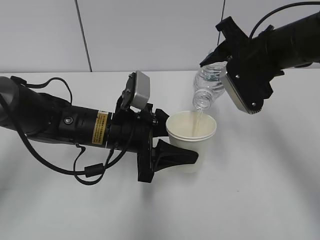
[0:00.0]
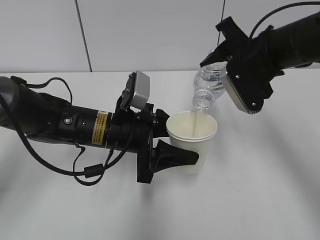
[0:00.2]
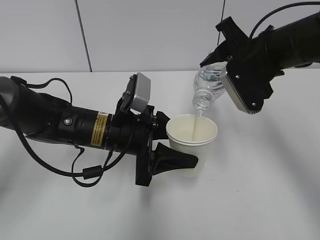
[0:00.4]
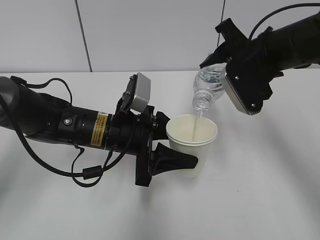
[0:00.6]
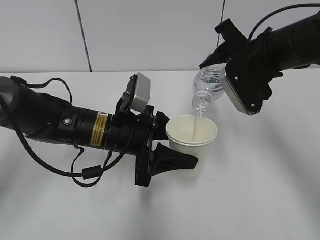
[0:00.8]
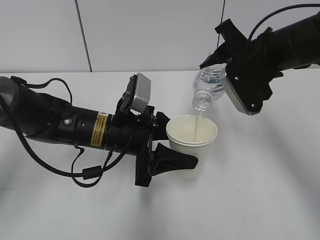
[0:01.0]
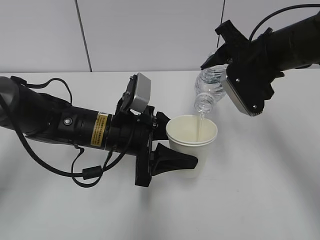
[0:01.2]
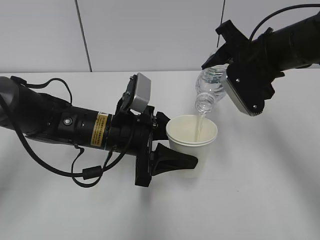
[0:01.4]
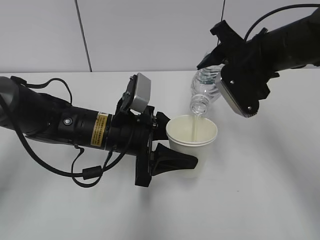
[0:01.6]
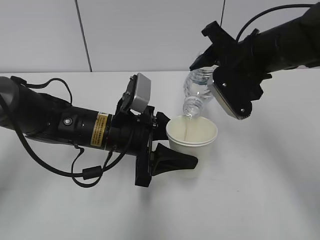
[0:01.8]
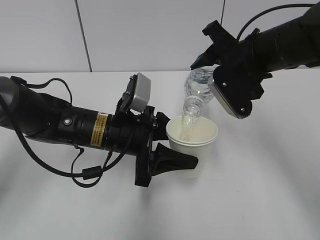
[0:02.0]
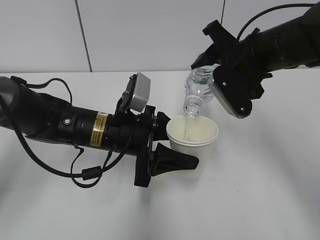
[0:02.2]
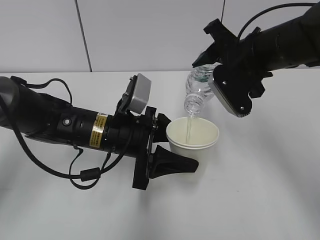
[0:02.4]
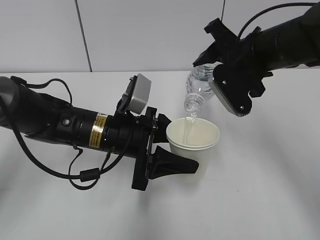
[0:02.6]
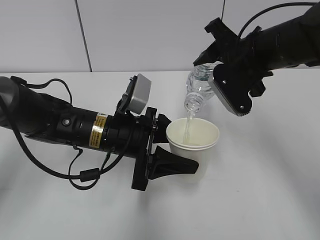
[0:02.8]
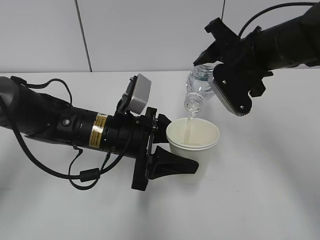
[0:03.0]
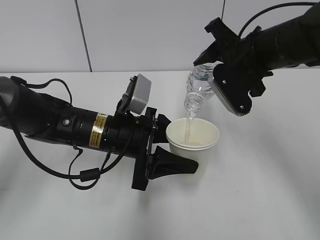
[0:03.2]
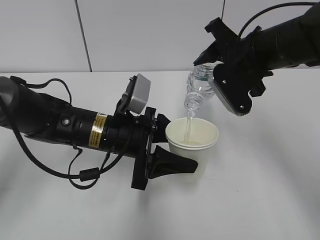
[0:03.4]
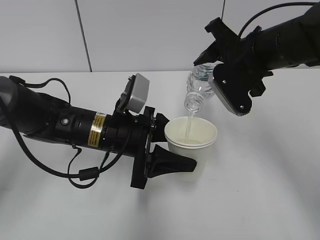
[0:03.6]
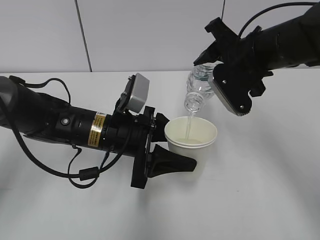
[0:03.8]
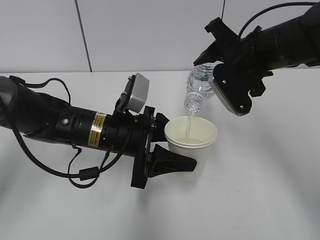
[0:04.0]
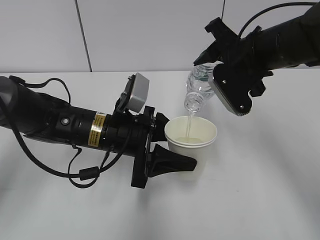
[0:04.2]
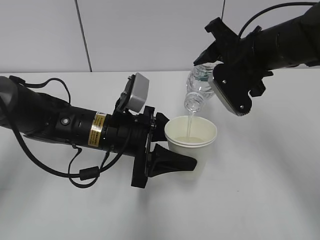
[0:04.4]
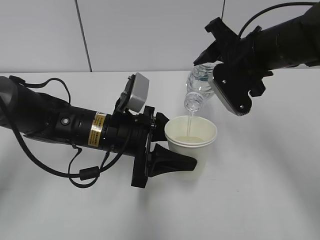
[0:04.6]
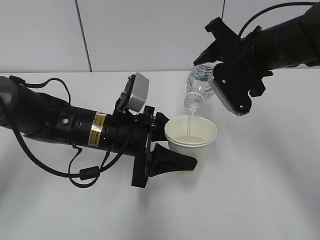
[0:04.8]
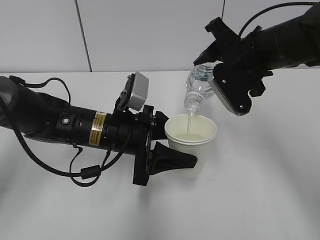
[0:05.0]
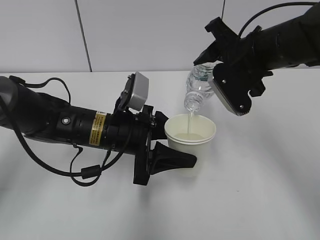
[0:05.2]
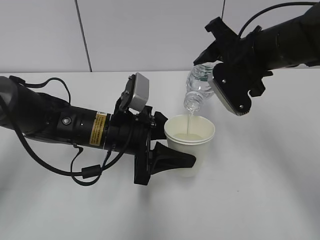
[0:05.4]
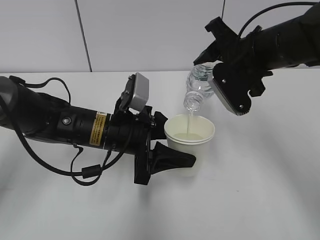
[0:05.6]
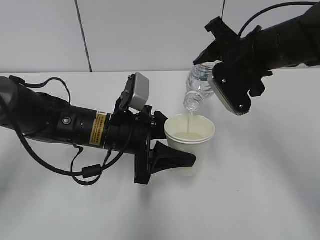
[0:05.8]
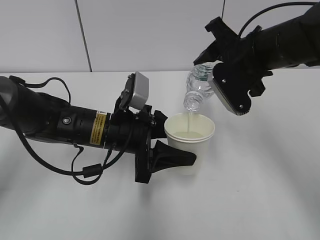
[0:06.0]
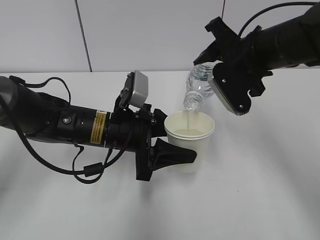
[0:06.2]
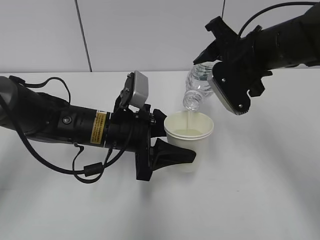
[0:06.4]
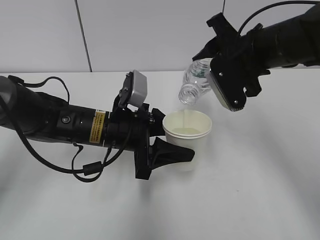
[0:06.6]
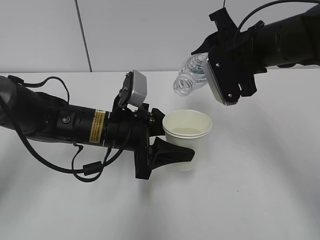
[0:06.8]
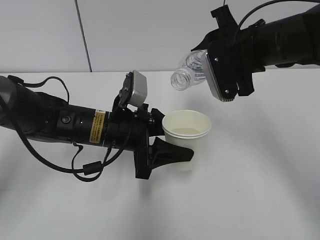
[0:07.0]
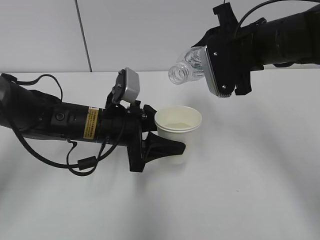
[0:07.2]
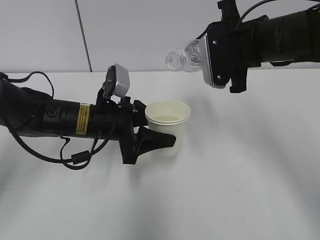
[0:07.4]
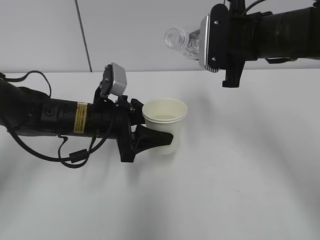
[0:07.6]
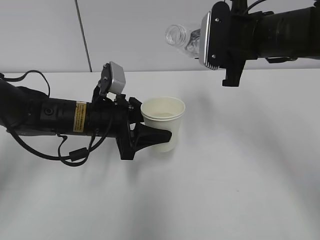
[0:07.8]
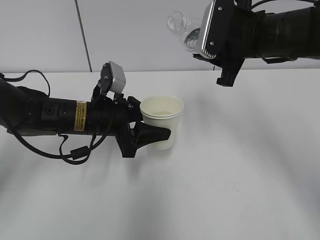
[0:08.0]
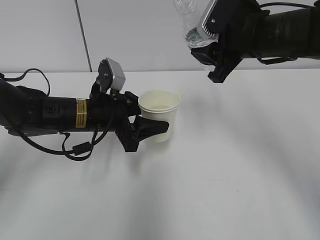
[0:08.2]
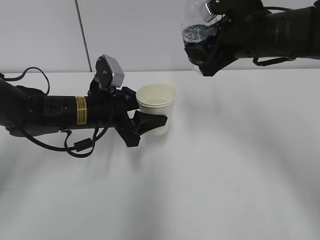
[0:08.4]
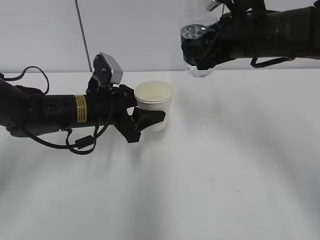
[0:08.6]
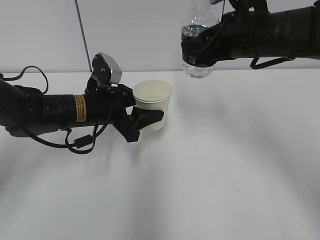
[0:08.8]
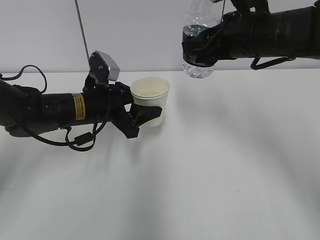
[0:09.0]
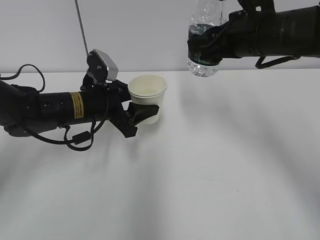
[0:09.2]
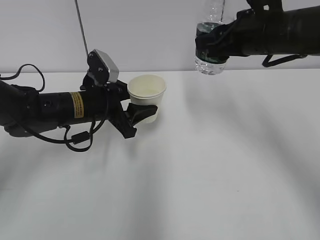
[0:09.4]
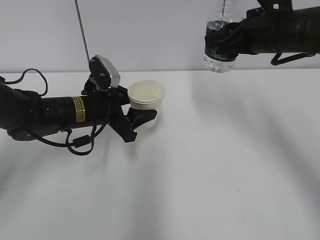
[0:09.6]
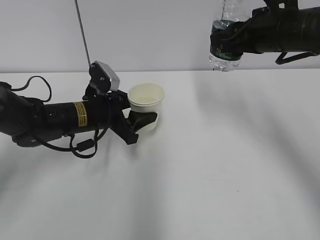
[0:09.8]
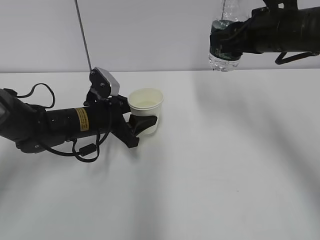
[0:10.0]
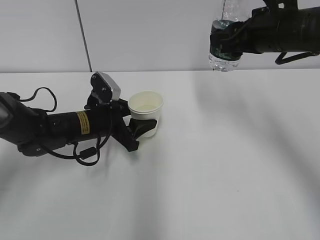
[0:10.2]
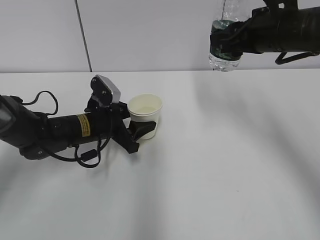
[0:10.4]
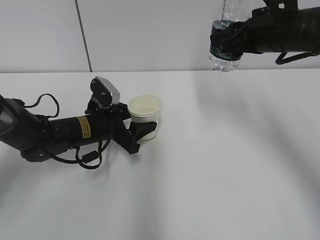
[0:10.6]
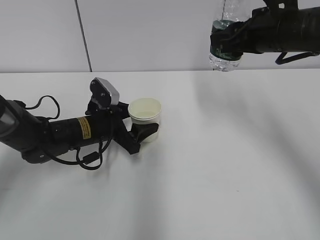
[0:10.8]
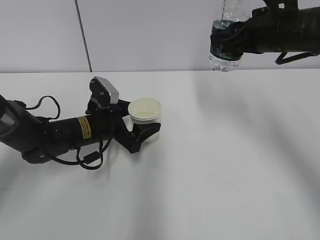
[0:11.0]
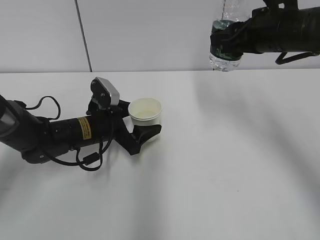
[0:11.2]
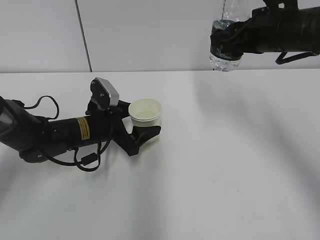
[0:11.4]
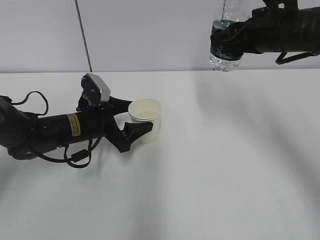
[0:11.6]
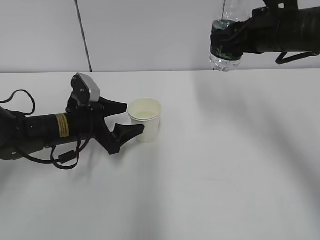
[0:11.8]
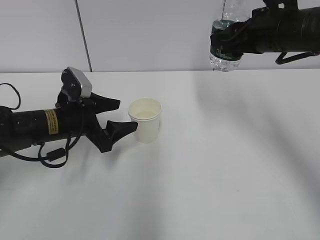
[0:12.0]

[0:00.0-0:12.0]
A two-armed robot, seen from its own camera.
Step, 0:01.8 to 0:11.2: Place the water bottle with the right hand.
0:00.0 to 0:01.6: Both grippers stay put.
0:01.6 to 0:06.0: Both grippers stay about where they are.
0:09.0 to 0:10.4: The left gripper goes some 5 cm downward.
0:10.4 to 0:12.0: The left gripper changes place by approximately 5 cm, and opens up.

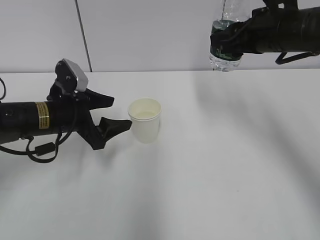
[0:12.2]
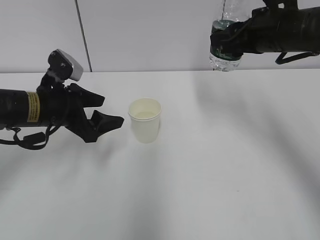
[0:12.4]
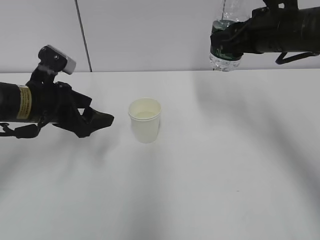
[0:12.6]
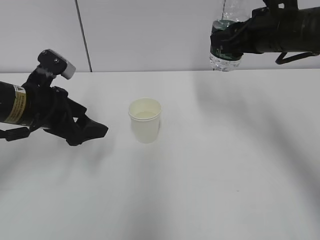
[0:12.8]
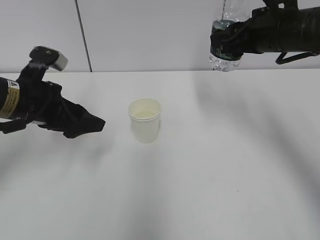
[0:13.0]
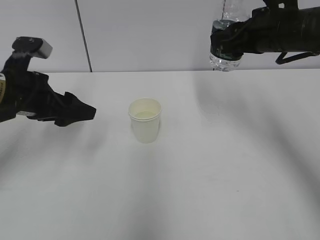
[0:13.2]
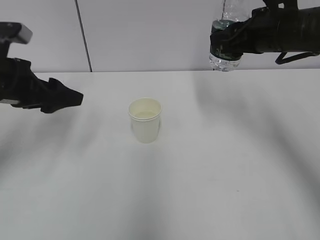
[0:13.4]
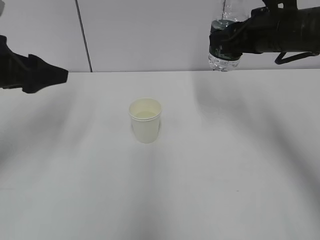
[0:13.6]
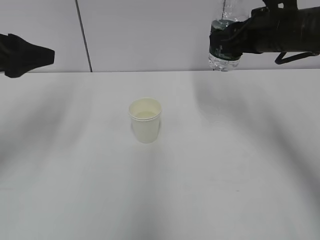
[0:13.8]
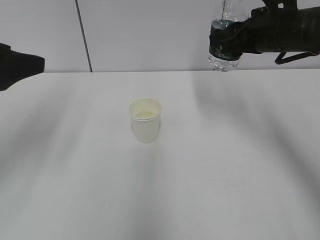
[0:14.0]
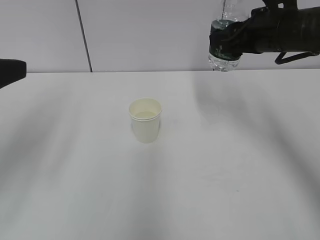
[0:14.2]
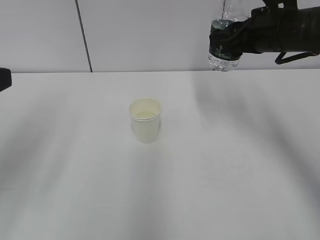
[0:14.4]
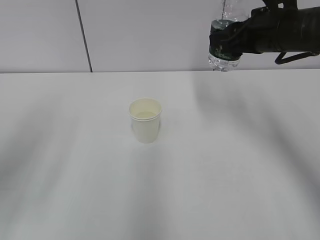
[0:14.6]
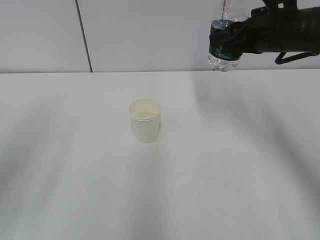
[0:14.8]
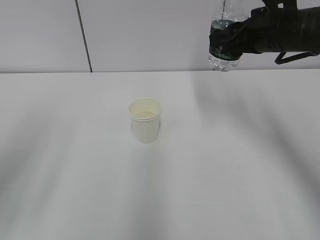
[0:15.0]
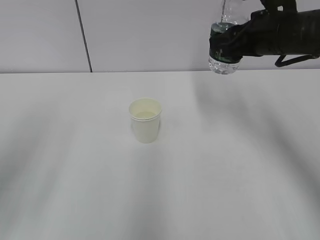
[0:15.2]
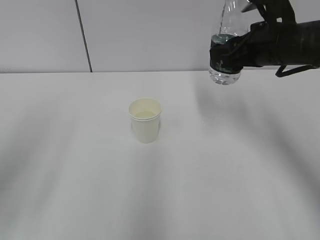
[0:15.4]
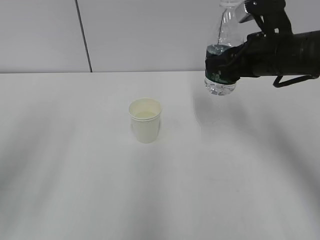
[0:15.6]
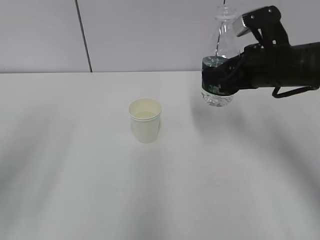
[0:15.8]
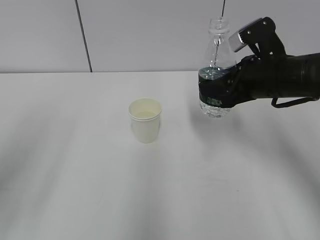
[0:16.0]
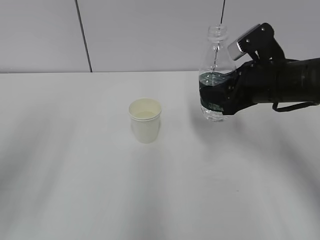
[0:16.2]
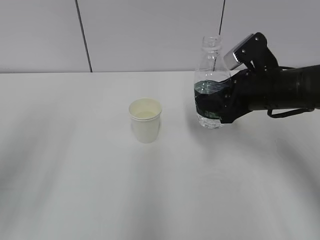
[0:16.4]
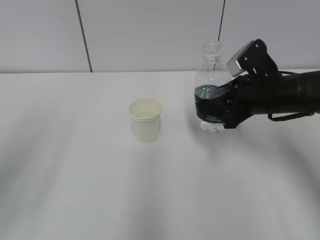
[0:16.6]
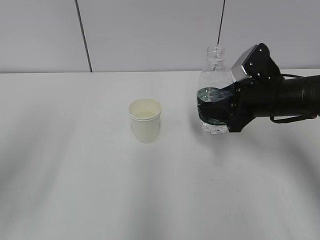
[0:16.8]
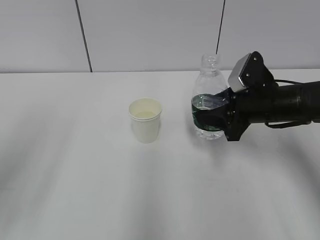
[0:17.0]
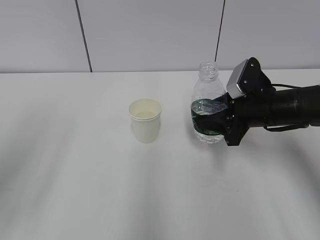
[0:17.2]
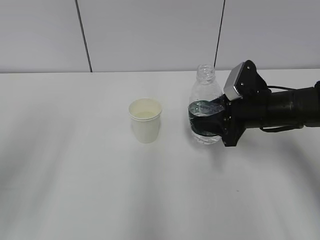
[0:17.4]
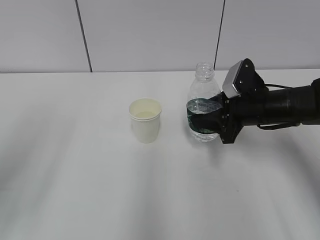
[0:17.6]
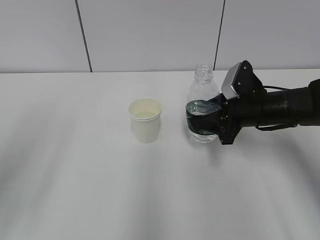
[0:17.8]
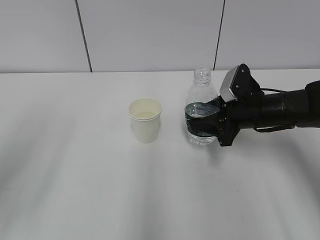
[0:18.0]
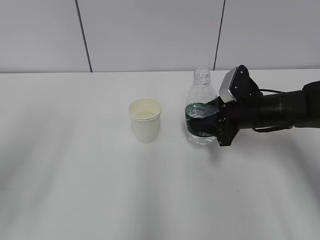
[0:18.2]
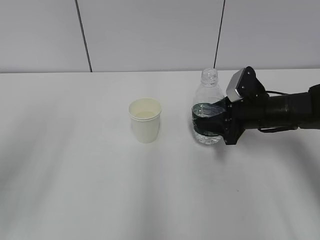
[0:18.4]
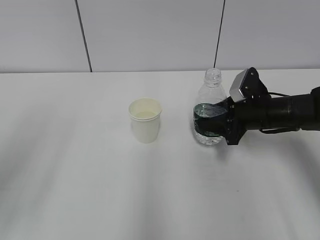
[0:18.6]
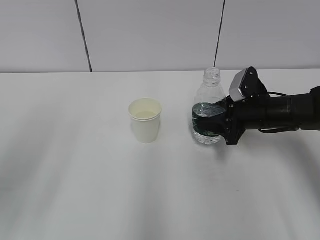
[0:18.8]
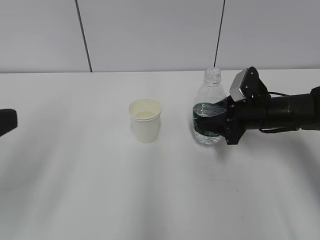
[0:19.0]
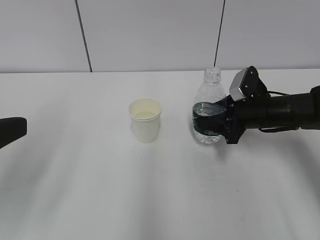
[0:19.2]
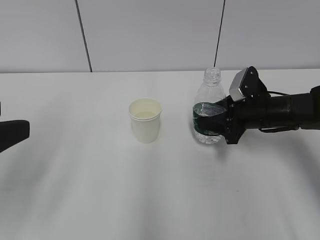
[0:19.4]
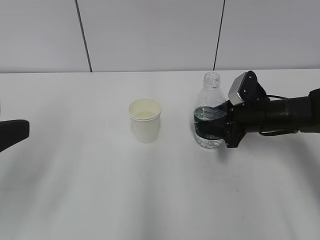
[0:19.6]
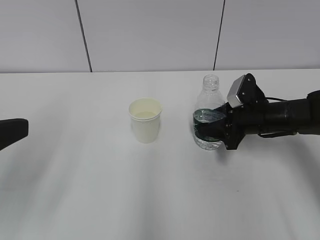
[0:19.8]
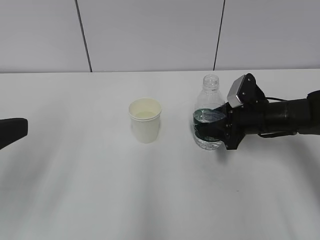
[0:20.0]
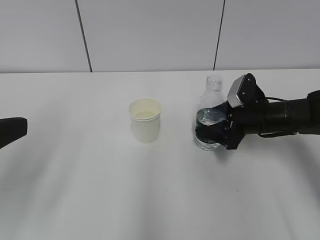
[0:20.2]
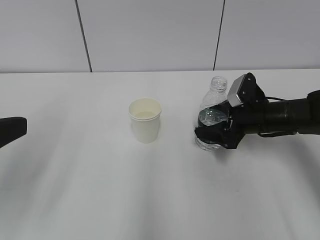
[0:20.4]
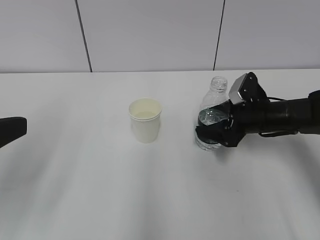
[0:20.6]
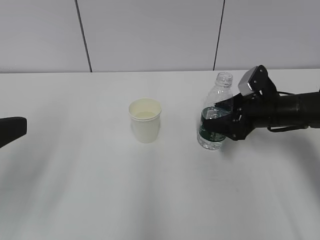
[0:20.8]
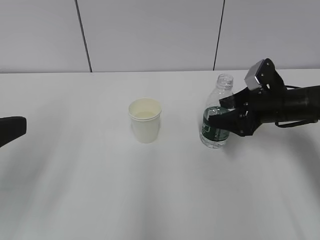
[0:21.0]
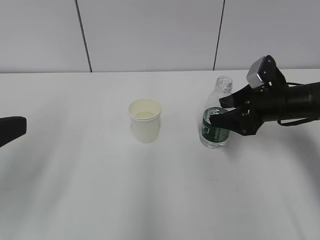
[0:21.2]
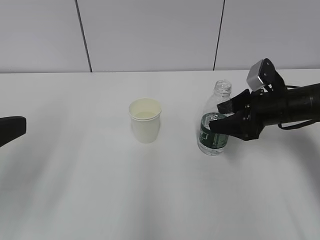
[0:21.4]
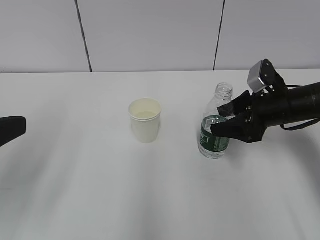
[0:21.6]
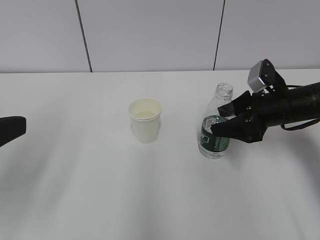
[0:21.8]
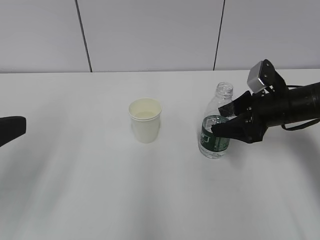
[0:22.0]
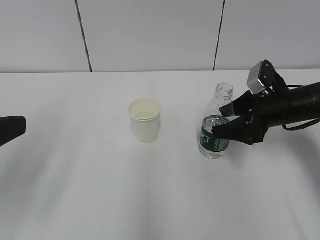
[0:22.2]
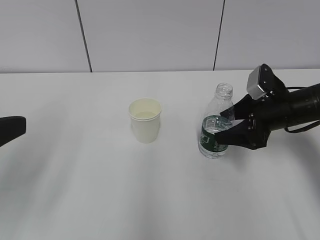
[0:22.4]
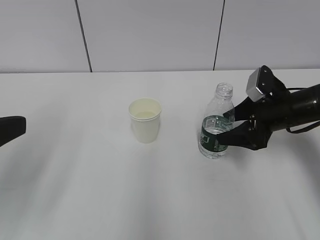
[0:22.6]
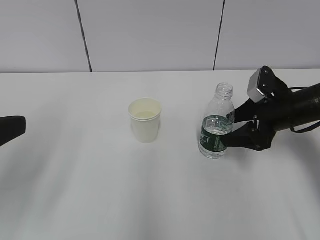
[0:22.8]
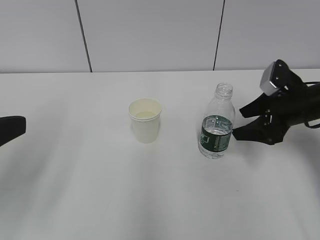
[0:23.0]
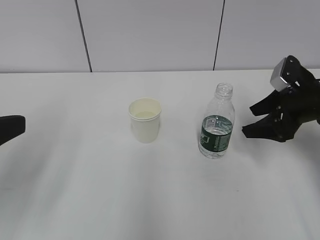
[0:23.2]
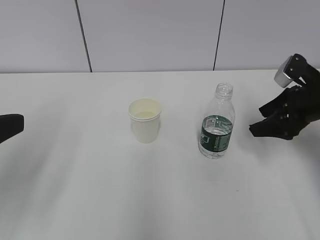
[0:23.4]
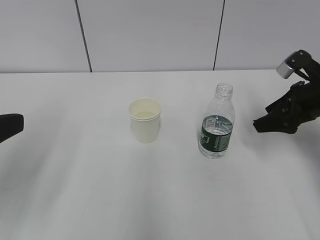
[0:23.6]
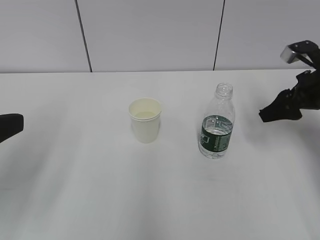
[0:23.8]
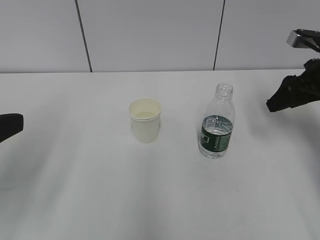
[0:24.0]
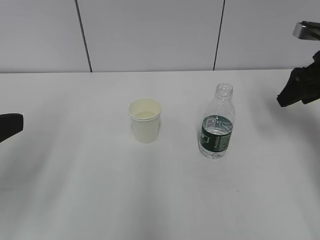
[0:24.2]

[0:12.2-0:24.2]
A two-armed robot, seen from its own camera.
0:12.2 to 0:13.8: The left gripper travels upward and to the left by approximately 20 cm.
0:13.8 to 0:15.2: The left gripper goes approximately 15 cm backward.
0:15.2 to 0:16.6: The right gripper heads downward, covering some 10 cm.
0:16.6 to 0:18.2: The right gripper goes some 5 cm downward.
0:18.2 to 0:19.8: The grippers make only small movements.
0:19.8 to 0:21.2: The right gripper opens up.
0:21.2 to 0:22.6: The grippers move only a little.
0:22.6 to 0:24.2: The right gripper moves upward and to the right, about 15 cm.
